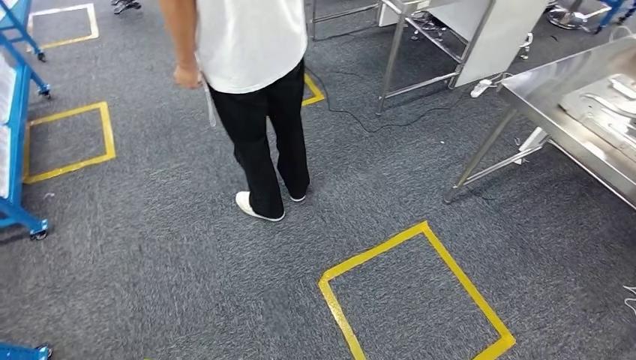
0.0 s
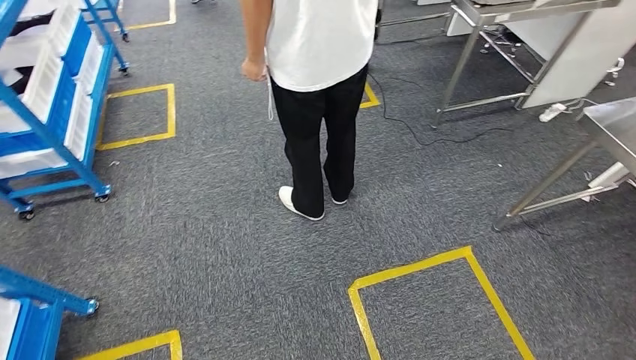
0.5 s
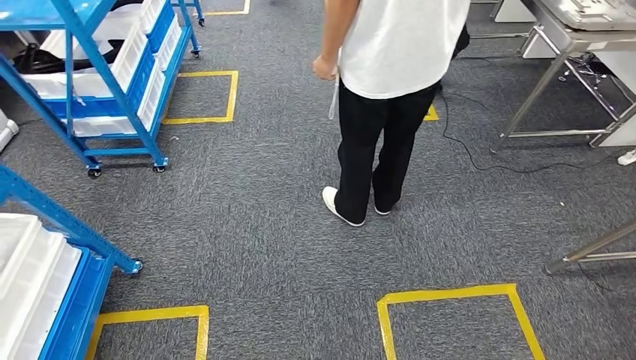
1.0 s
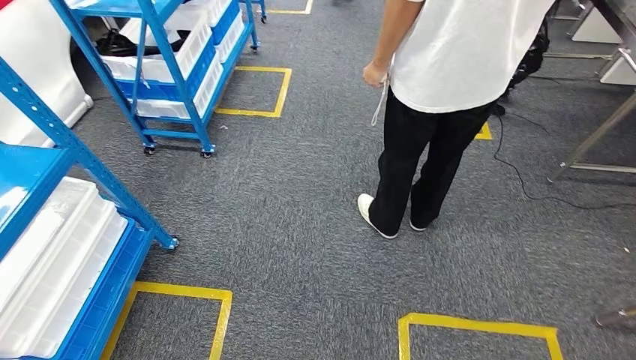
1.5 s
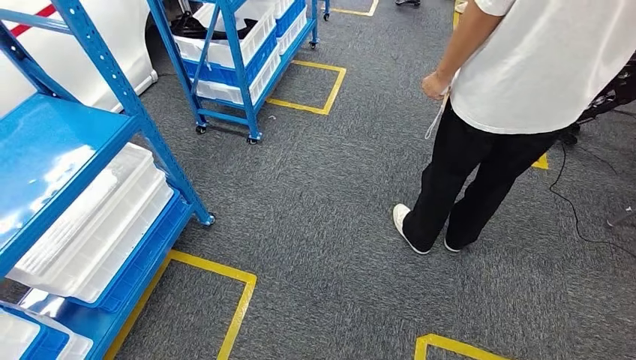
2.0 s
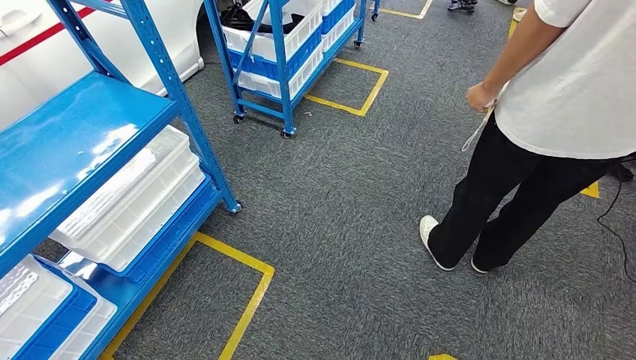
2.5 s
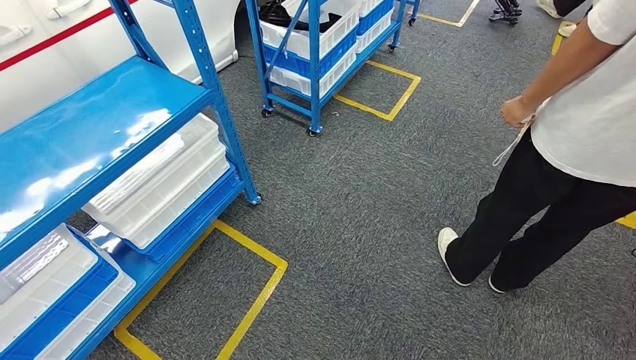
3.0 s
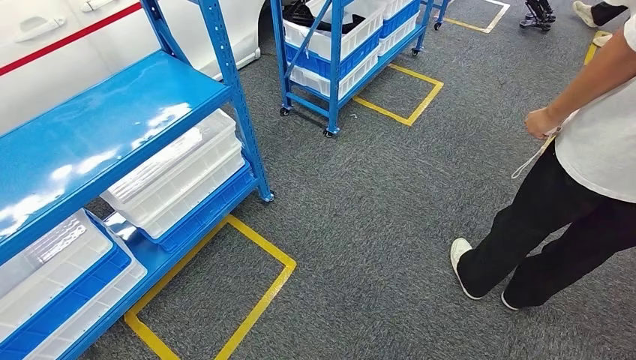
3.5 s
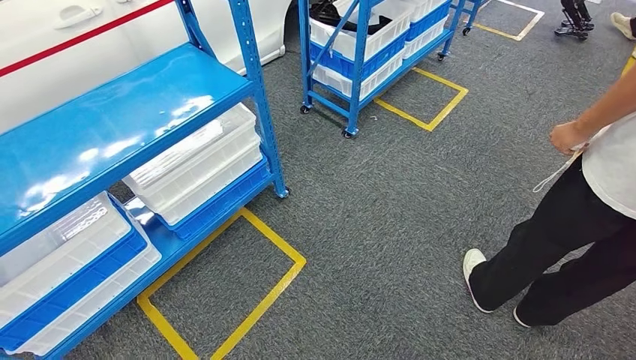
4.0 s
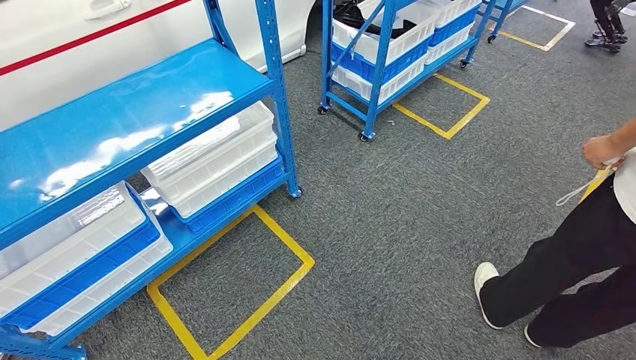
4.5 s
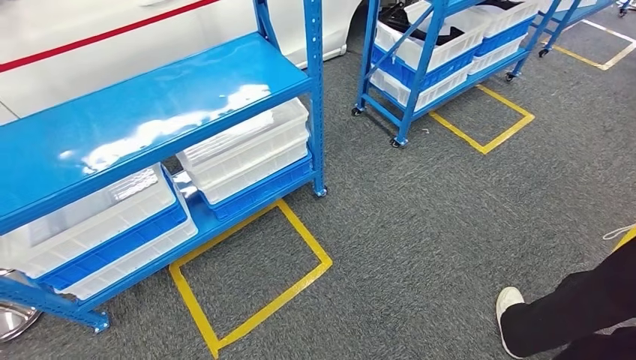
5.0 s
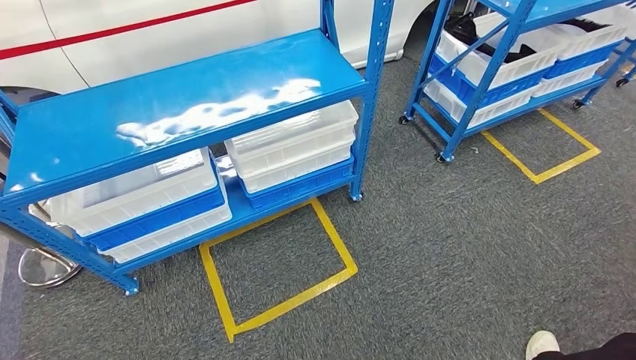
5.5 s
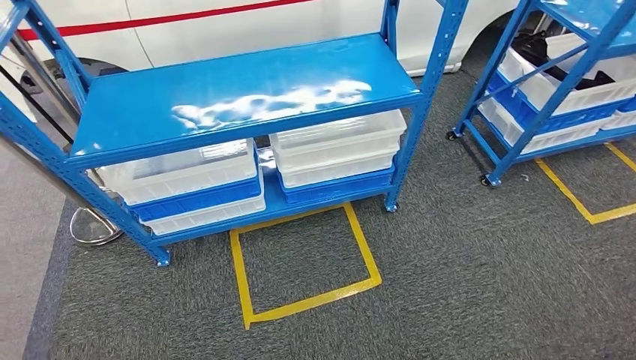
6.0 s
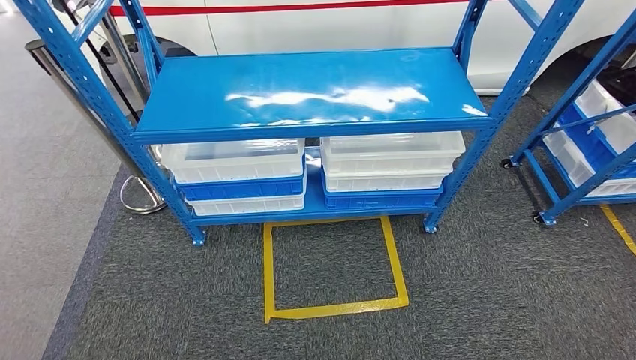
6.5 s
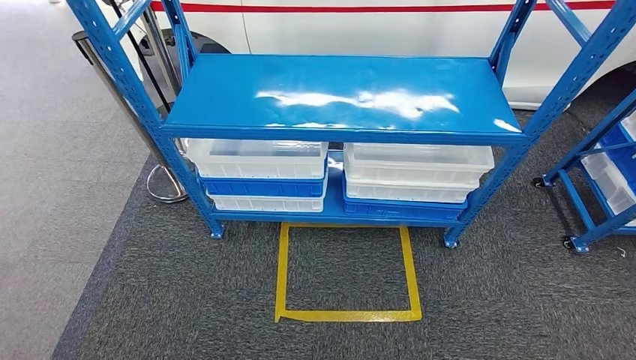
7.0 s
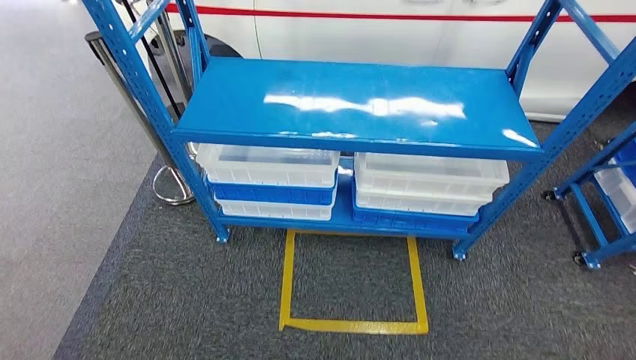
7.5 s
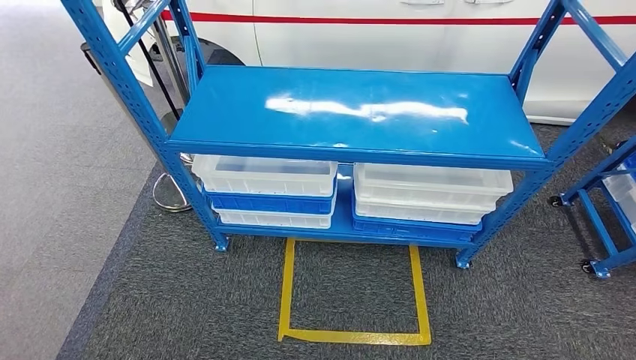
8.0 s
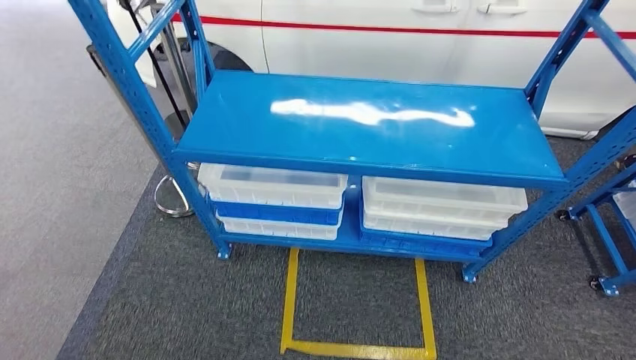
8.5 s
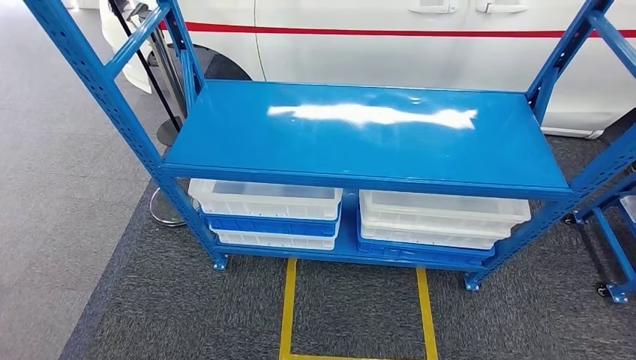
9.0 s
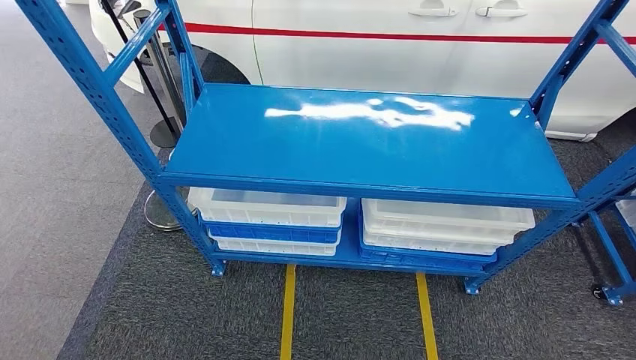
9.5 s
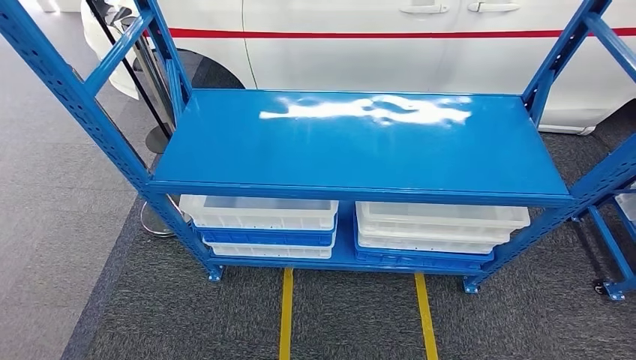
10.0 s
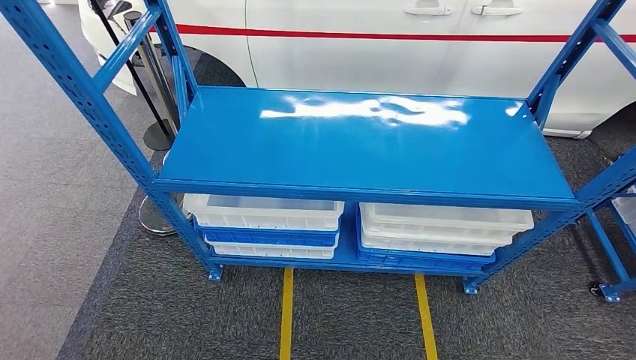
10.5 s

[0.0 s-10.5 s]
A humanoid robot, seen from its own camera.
Step, 0.0 to 10.5 s: Move to the initial position of the shelf.
